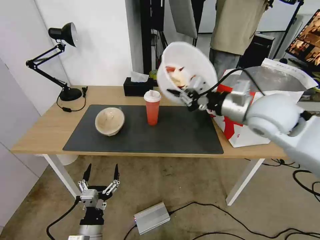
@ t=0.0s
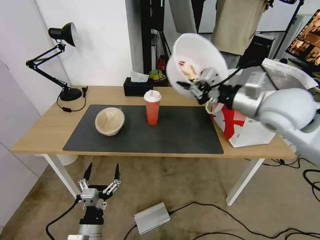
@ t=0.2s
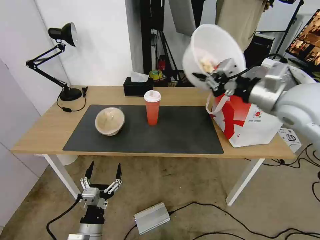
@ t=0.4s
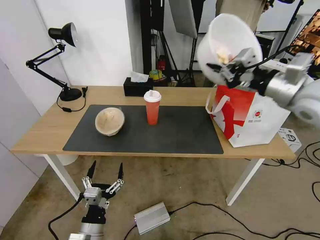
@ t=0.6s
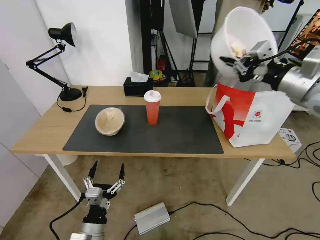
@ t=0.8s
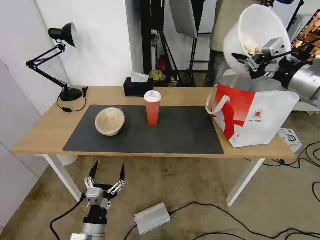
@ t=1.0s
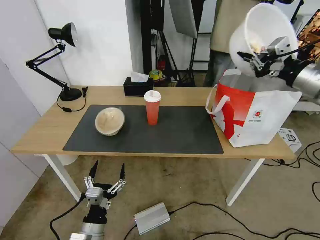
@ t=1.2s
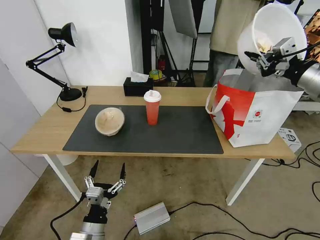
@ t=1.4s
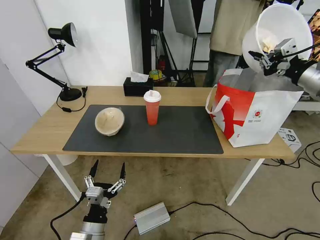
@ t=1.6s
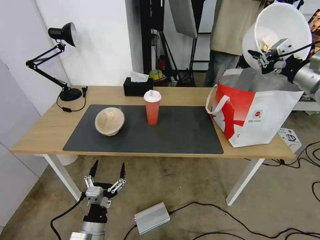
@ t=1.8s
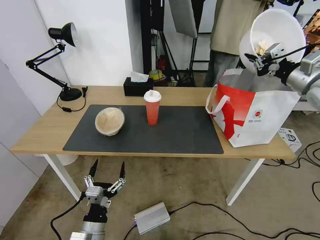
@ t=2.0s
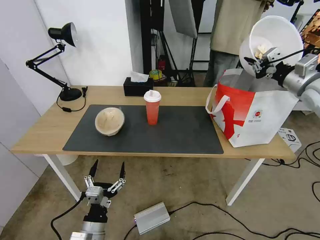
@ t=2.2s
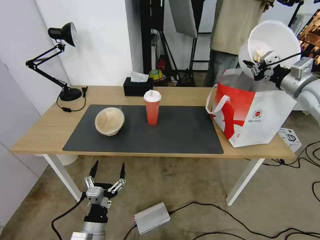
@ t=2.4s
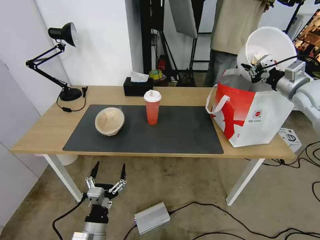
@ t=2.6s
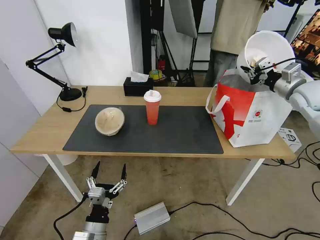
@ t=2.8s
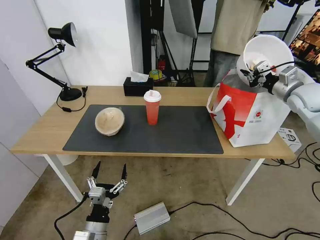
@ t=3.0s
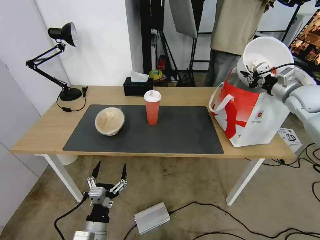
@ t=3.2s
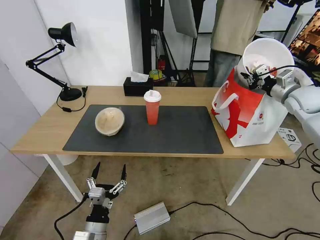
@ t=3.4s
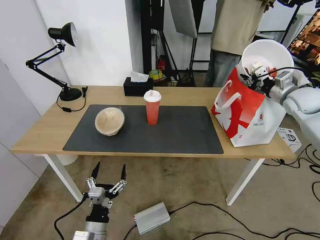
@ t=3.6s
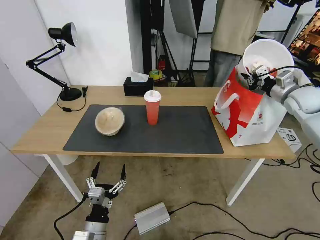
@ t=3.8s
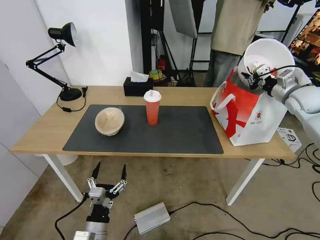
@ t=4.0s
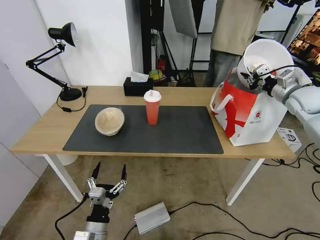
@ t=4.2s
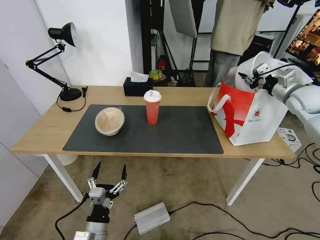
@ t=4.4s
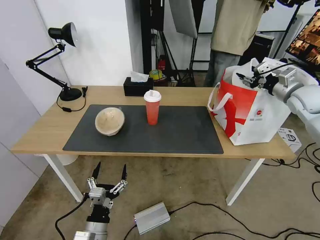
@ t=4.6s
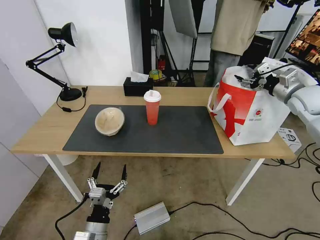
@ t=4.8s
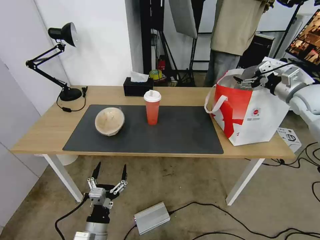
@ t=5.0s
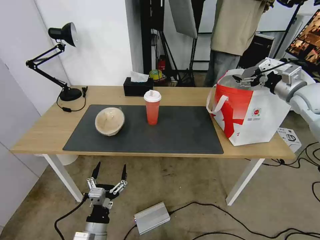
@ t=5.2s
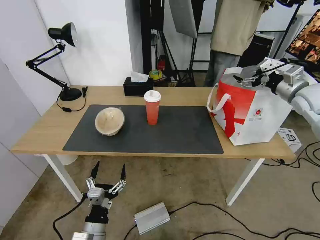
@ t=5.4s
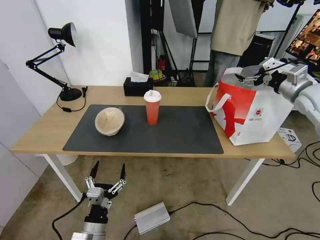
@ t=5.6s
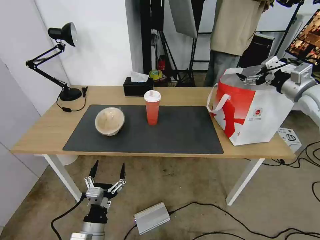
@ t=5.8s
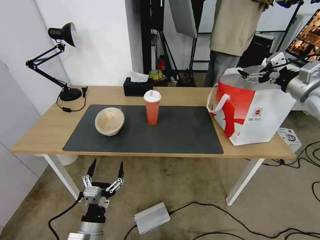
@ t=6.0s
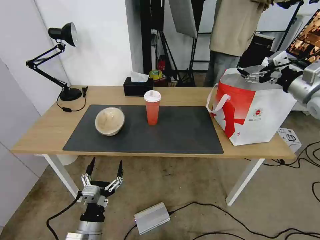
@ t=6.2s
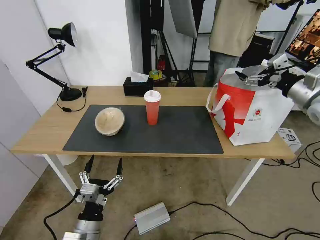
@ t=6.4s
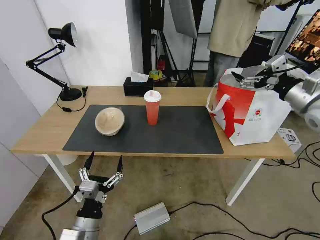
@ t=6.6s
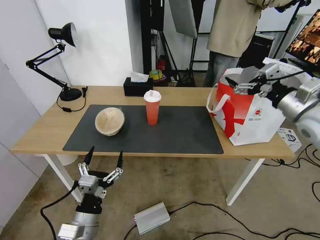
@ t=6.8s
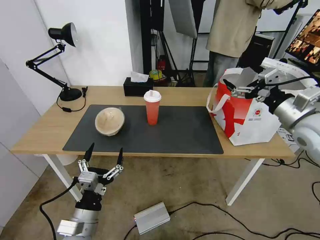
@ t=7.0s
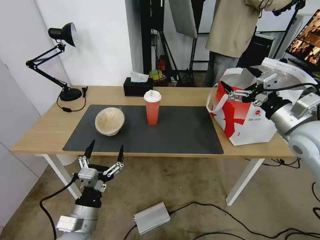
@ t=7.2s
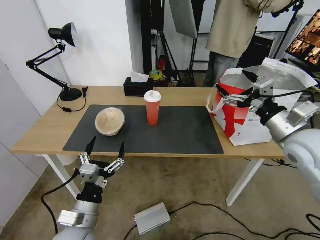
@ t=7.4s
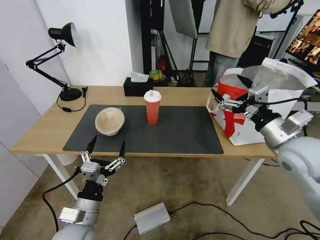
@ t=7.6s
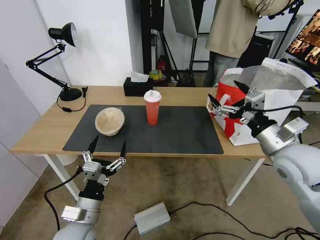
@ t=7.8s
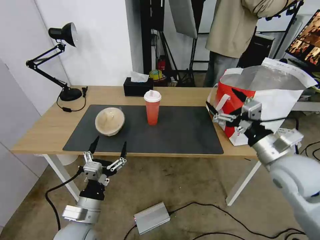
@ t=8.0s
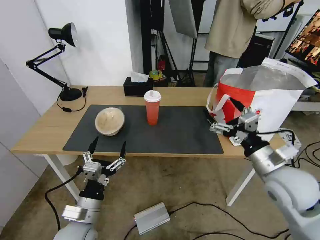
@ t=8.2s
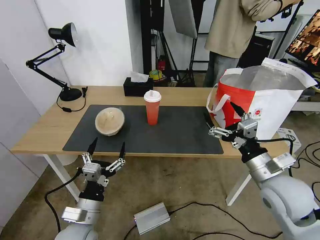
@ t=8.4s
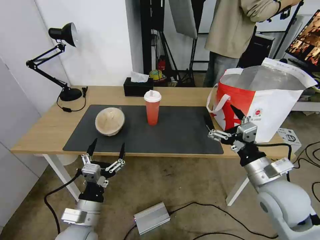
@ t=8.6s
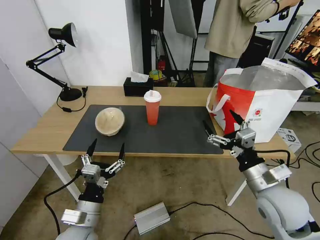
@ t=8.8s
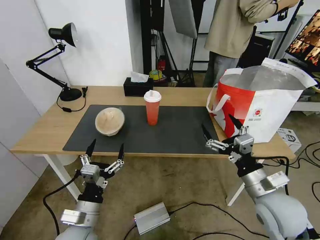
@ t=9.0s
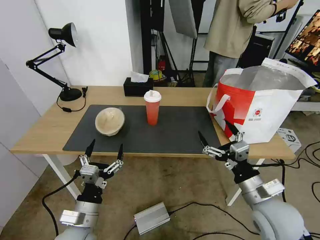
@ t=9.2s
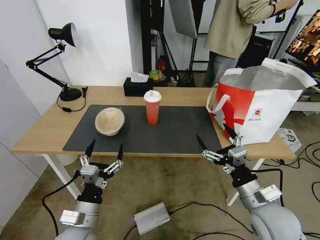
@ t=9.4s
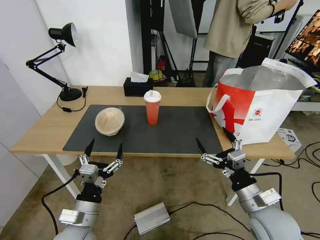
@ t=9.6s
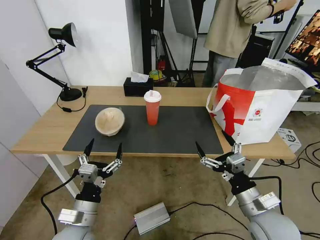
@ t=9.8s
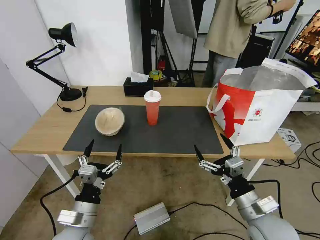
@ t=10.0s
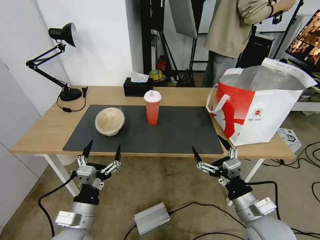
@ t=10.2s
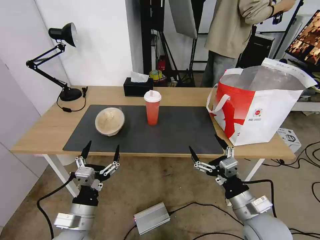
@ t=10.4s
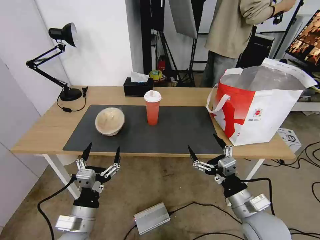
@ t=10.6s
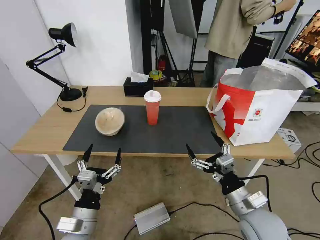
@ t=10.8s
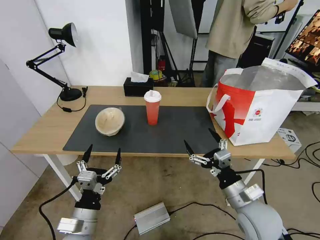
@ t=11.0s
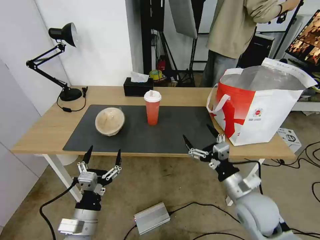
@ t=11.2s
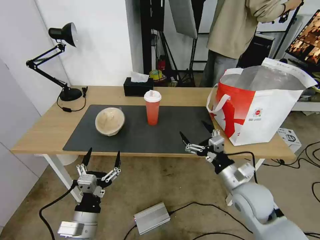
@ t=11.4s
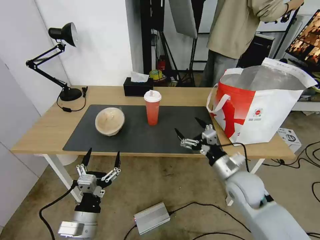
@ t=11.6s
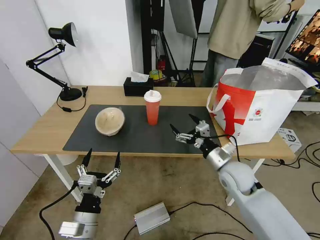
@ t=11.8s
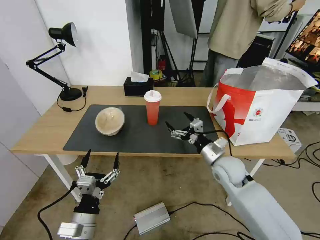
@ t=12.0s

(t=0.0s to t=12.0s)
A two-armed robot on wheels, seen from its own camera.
Task of the whole recording: Pick up the trash from the table and place it into the takeout bag.
t=0.0s - t=1.6s: The right gripper shifts about 20 cm to the right.
t=1.6s - t=3.0s: The right gripper shifts roughly 15 cm forward and downward.
t=3.0s - t=4.4s: The grippers make only small movements.
t=4.4s - t=6.0s: The right gripper is displaced backward by roughly 5 cm, and opens.
t=6.0s - t=7.6s: The left gripper heads upward, covering some 5 cm, while the right gripper goes approximately 20 cm backward, to the left and downward.
t=7.6s - t=9.0s: The right gripper travels downward, backward and to the left by about 15 cm.
t=9.0s - t=10.4s: The right gripper shifts by approximately 5 cm.
t=10.4s - t=12.0s: The right gripper is displaced forward by about 20 cm.

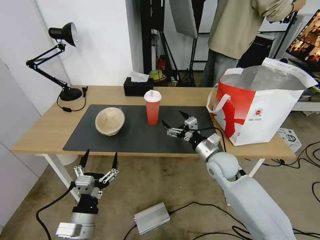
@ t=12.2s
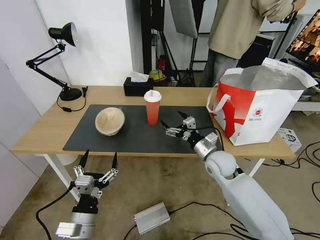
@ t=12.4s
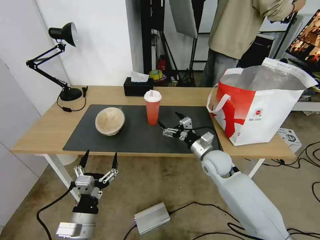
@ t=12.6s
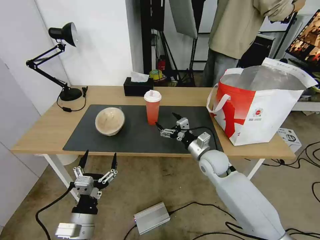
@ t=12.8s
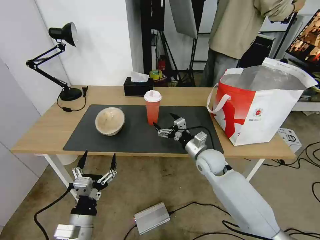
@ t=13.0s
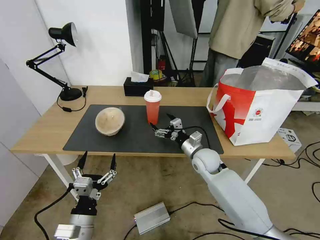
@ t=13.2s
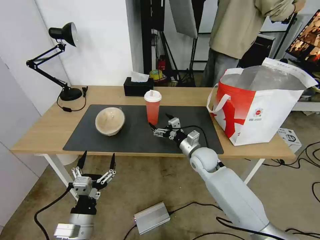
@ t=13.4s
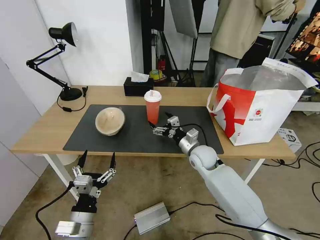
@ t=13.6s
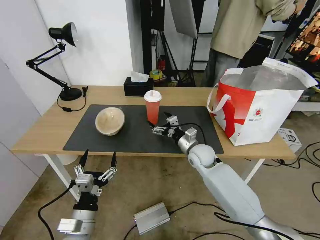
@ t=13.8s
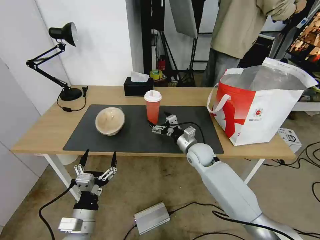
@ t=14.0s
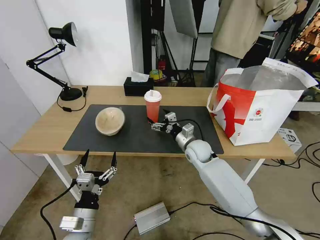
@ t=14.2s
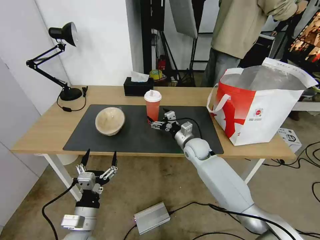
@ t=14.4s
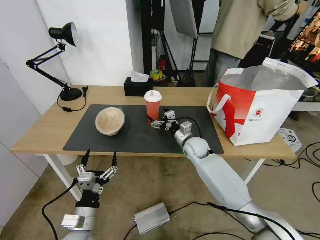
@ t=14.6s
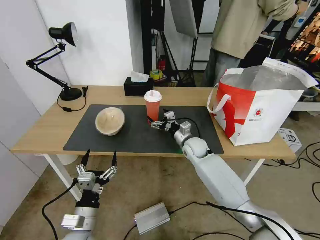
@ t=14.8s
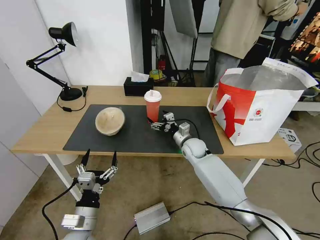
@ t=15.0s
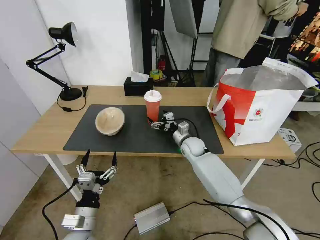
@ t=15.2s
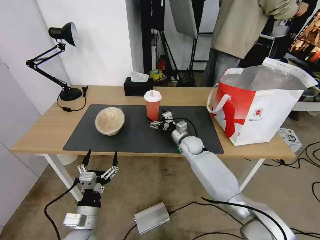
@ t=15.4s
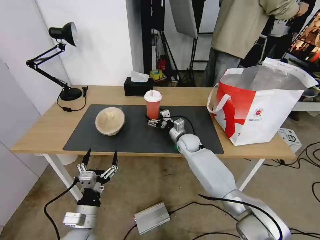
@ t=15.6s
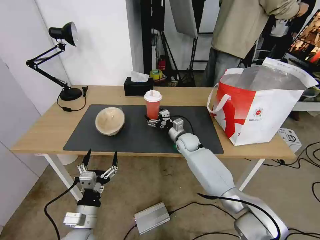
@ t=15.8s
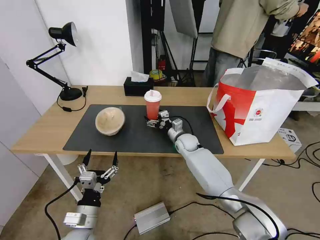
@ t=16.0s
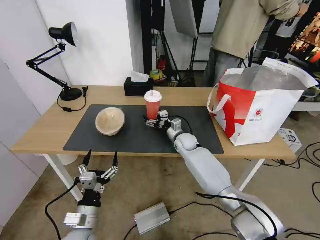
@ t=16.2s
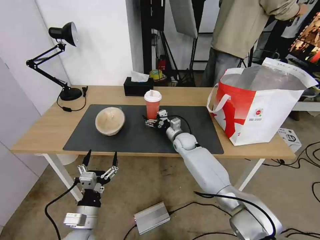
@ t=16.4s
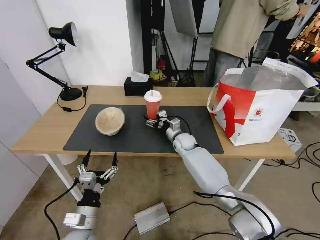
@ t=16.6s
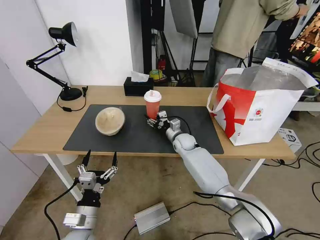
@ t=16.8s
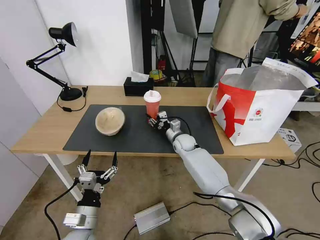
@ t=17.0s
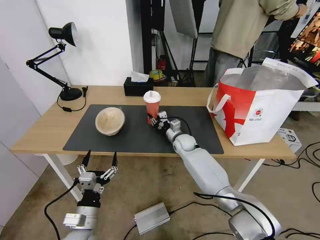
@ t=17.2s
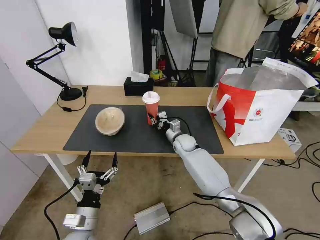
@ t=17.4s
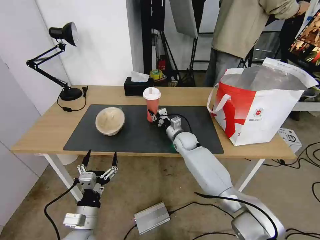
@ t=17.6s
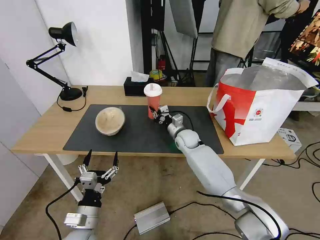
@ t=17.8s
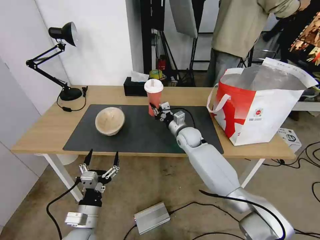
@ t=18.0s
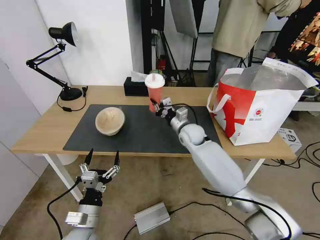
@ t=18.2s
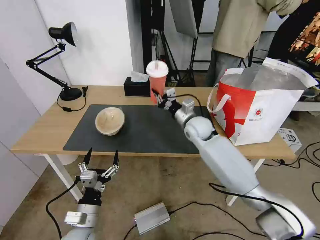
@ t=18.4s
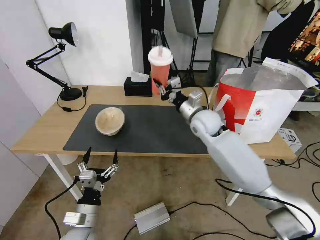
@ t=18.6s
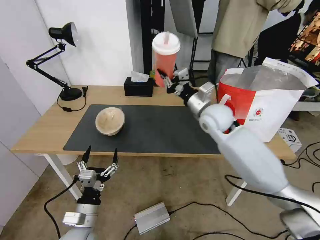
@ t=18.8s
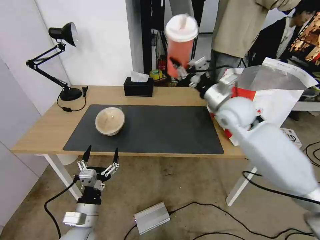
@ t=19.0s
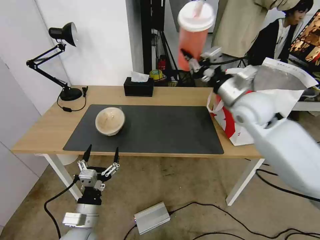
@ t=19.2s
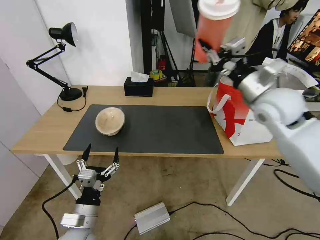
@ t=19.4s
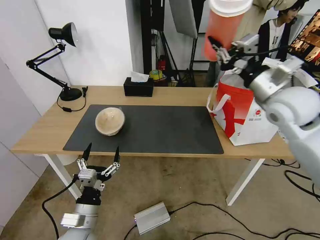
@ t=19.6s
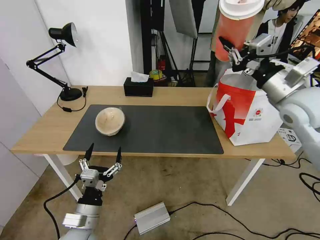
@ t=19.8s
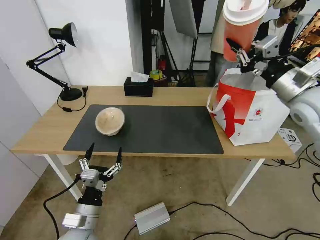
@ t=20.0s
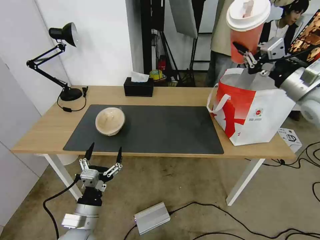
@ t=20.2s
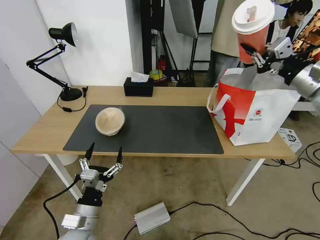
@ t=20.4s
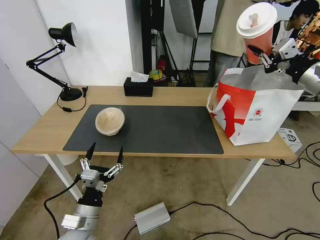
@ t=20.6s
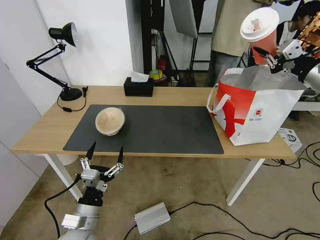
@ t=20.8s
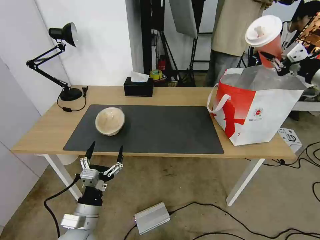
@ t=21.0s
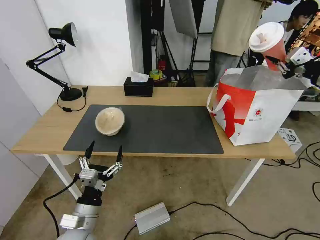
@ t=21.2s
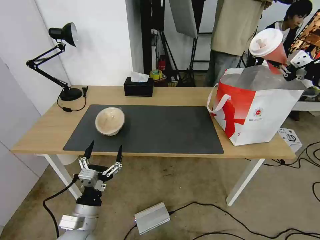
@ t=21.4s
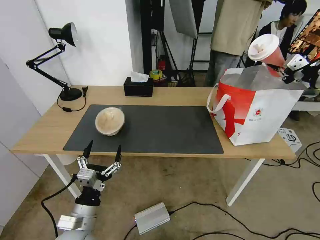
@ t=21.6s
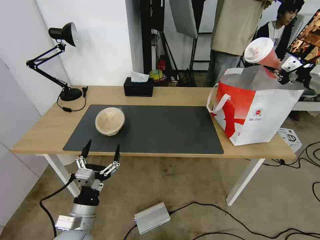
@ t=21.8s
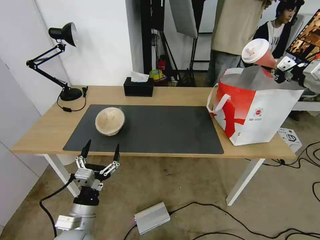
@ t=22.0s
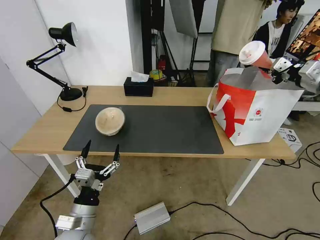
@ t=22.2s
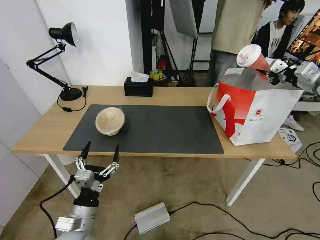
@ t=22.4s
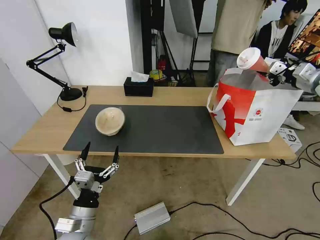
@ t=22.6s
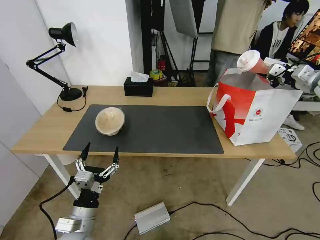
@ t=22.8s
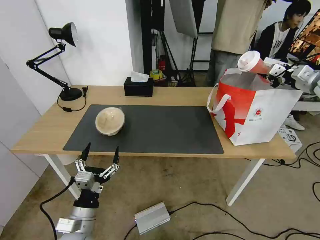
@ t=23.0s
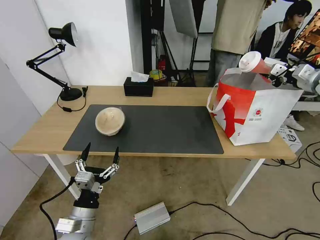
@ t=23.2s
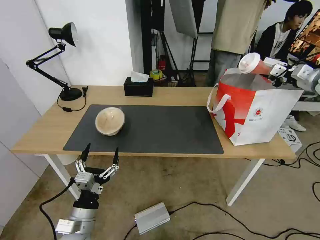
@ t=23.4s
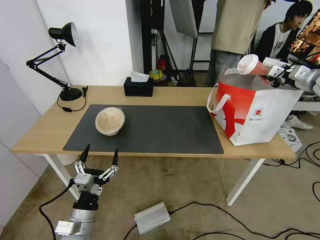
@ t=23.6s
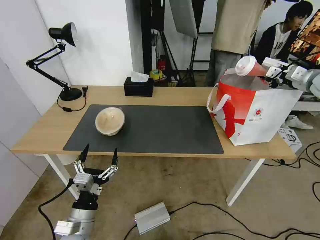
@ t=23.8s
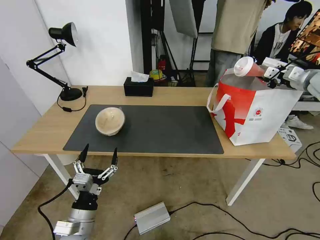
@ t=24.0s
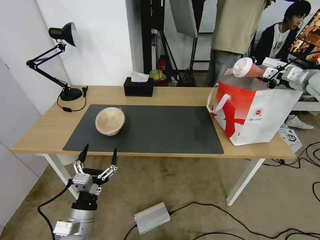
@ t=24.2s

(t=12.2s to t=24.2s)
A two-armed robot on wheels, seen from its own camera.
Task of the whole recording: Pick up the trash from the table and place it into the takeout bag.
t=12.2s - t=13.8s: The right gripper is displaced forward and to the left by some 10 cm.
t=13.8s - t=15.2s: The right gripper shifts some 5 cm forward.
t=15.2s - t=16.6s: The grippers make only small movements.
t=16.6s - t=18.2s: The right gripper shifts about 10 cm upward, and closes up.
t=18.2s - t=19.8s: The right gripper is displaced upward, to the right and backward by about 35 cm.
t=19.8s - t=21.2s: The right gripper heads to the right, covering roughly 15 cm.
t=21.2s - t=22.6s: The right gripper is displaced forward by some 10 cm.
t=22.6s - t=24.2s: There are only small adjustments of the grippers.
